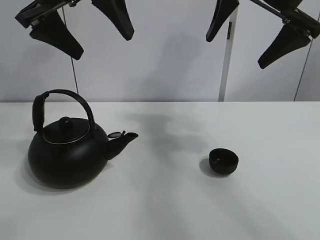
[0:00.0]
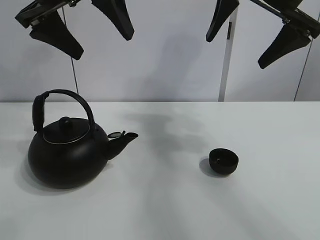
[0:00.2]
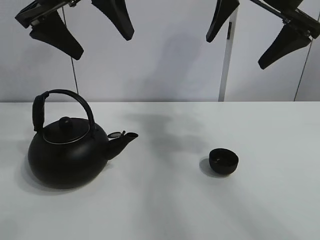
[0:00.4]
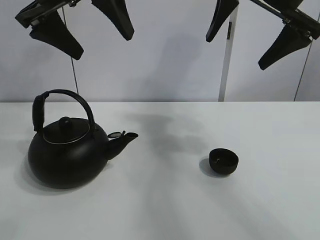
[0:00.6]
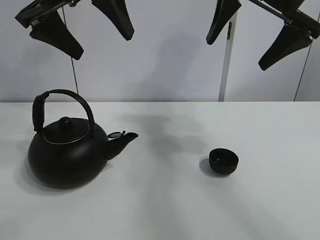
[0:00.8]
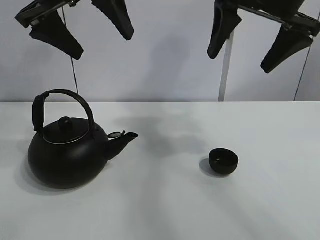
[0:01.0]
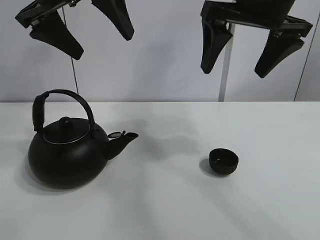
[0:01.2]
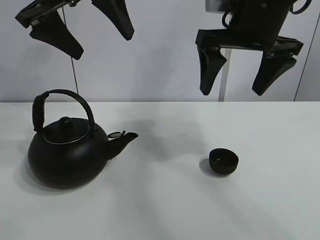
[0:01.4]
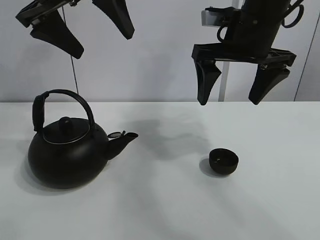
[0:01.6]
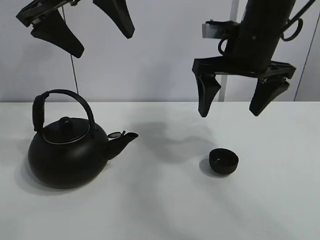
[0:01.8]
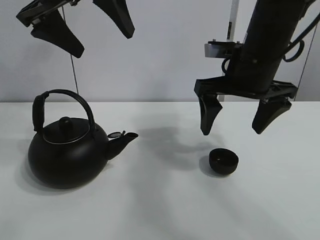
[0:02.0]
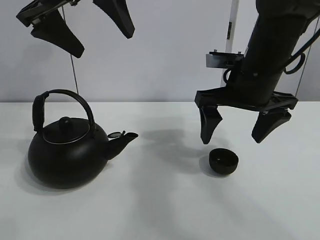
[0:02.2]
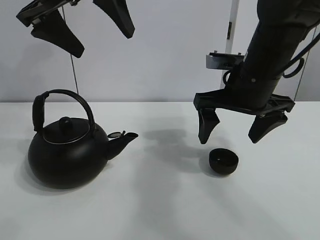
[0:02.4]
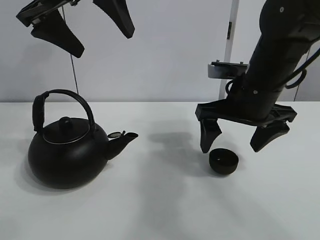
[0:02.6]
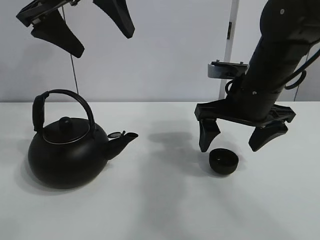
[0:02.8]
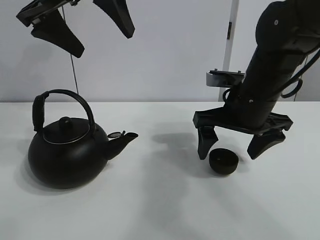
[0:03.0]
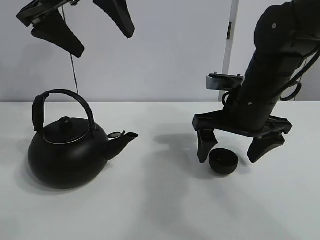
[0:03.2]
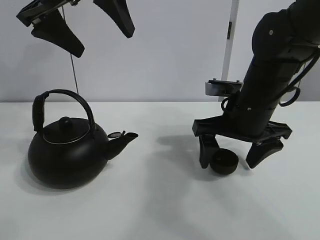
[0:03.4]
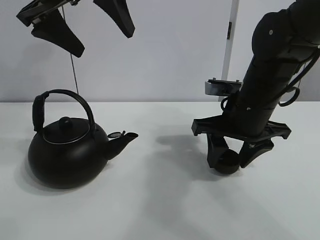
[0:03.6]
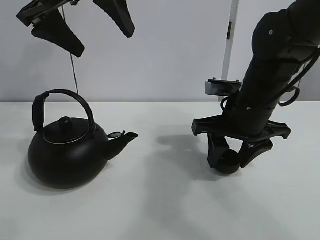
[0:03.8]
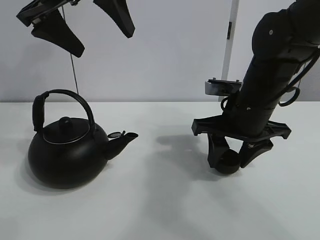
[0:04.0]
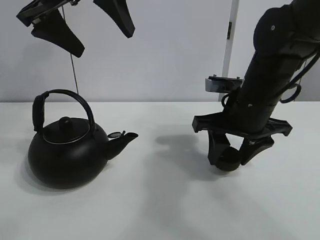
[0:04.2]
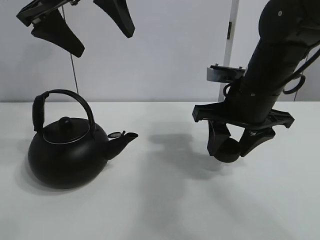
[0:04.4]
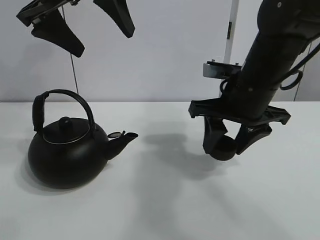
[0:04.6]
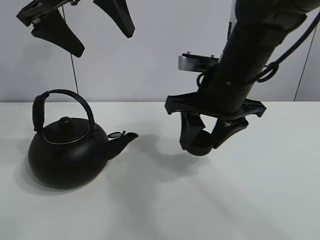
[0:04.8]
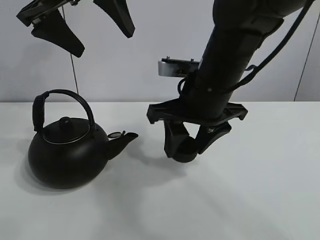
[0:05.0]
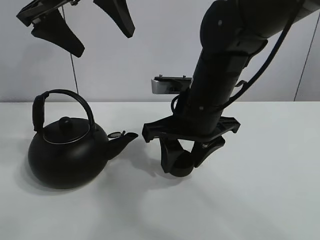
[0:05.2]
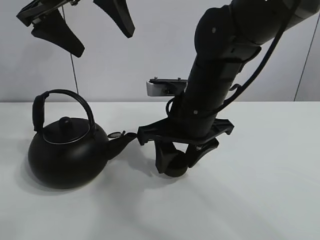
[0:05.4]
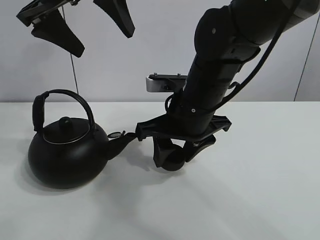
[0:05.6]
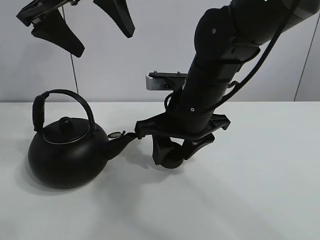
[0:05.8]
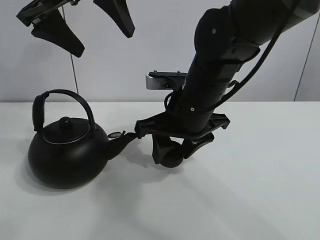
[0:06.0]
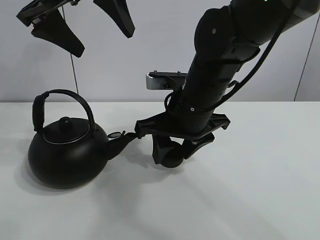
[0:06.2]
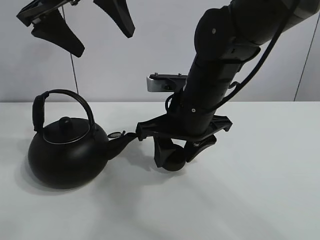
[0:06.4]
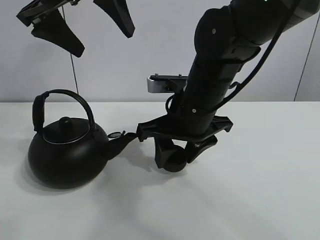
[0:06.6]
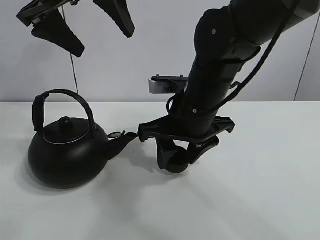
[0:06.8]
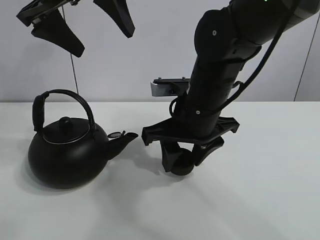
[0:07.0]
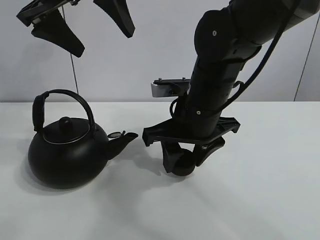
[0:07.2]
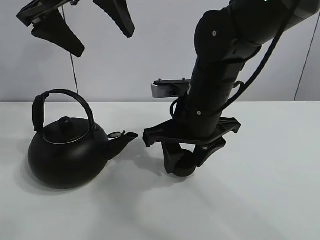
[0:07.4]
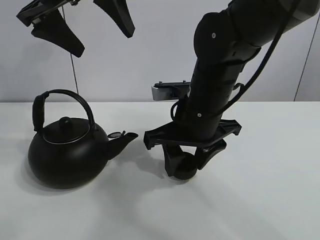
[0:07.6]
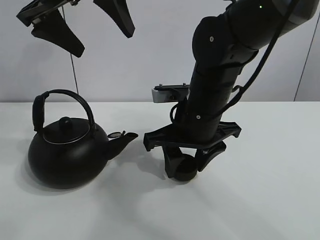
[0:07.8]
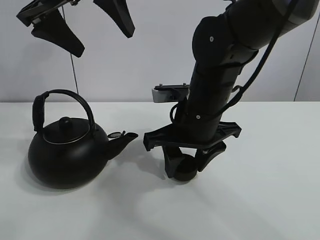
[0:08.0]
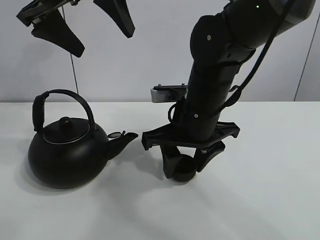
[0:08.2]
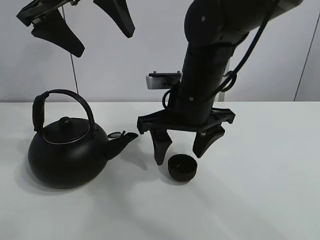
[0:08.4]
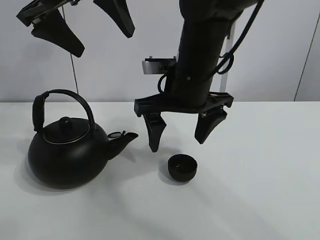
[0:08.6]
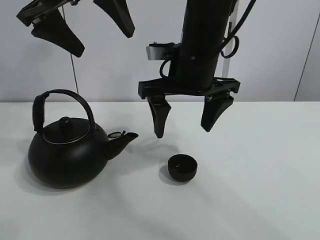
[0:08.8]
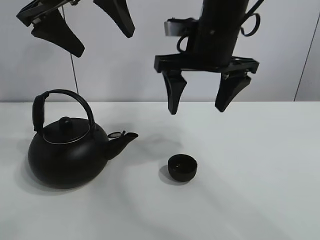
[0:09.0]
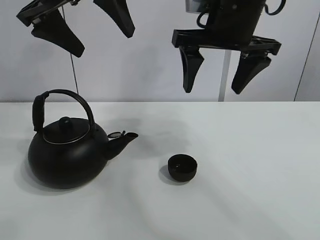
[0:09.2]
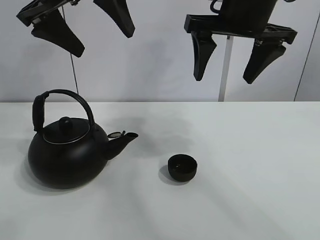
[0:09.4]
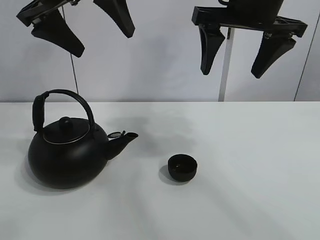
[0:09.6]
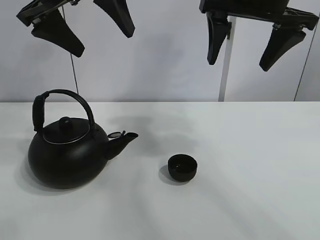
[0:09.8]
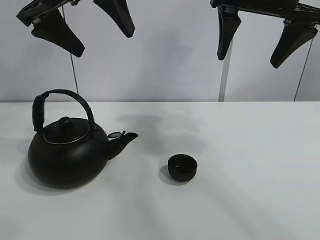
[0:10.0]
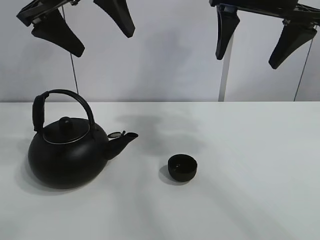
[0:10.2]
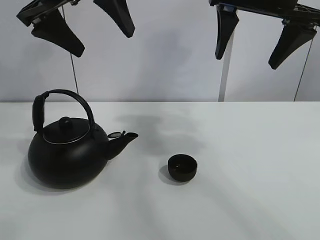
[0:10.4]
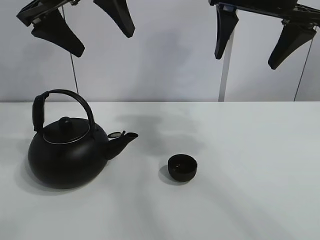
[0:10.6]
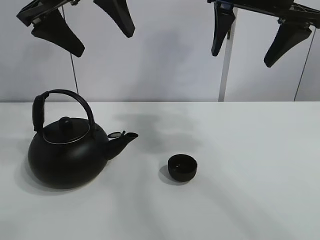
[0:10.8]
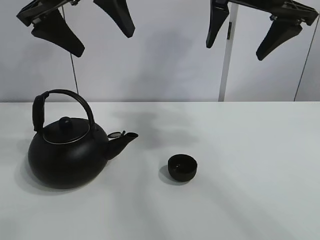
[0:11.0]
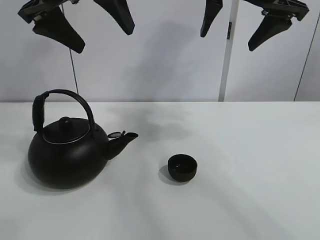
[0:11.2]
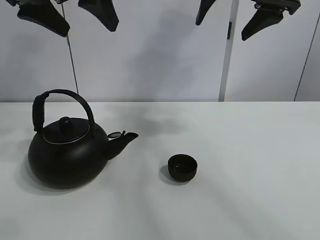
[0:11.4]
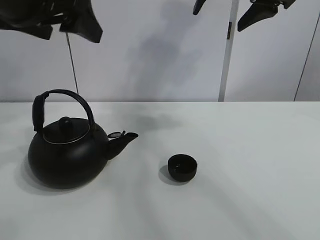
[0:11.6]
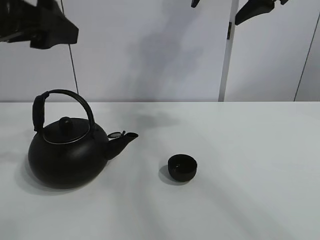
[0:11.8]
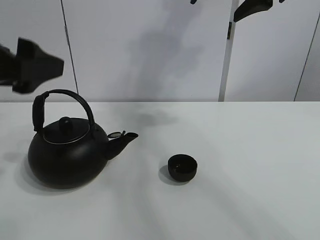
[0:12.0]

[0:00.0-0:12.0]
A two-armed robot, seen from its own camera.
Task of the whole recording: pour tea into the teacup.
Step, 0:00.0 to 0:03.6: Pick up the teacup with the right gripper.
Step, 0:04.0 to 0:08.2: Place the teacup in the center of view with the right gripper.
0:01.6 to 0:03.0: The right gripper moves downward, roughly 10 cm.
0:03.0 to 0:04.4: The right gripper closes up.
0:04.4 to 0:06.0: The right gripper goes roughly 10 cm to the left.
0:06.0 to 0:07.6: There are only small adjustments of the grippers.
0:07.6 to 0:09.0: The right gripper is displaced upward by about 10 cm, and opens up.
0:09.0 to 0:10.4: The right gripper travels to the right and upward by some 10 cm.
0:10.4 to 0:12.0: The right gripper changes place by some 5 cm. Meanwhile the left gripper goes approximately 15 cm backward, downward and to the left.

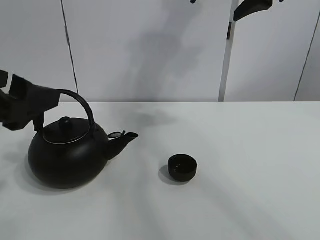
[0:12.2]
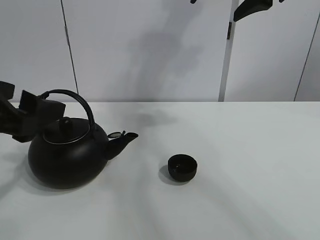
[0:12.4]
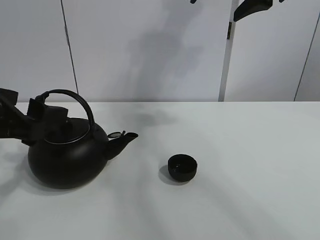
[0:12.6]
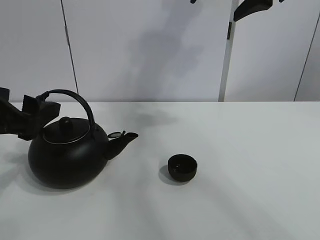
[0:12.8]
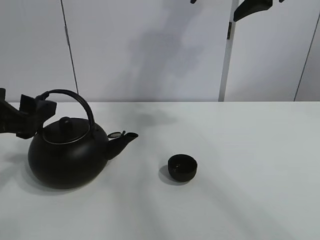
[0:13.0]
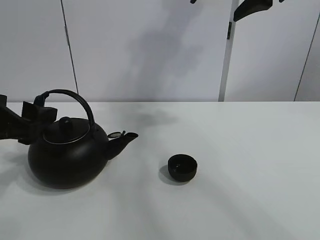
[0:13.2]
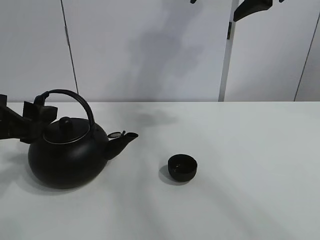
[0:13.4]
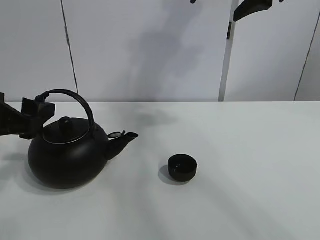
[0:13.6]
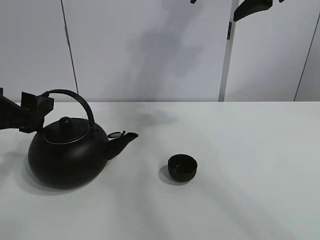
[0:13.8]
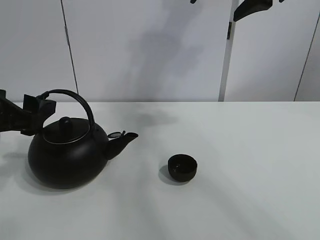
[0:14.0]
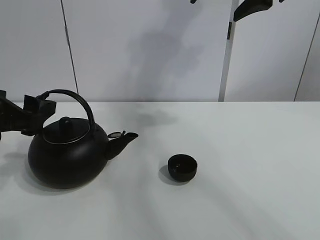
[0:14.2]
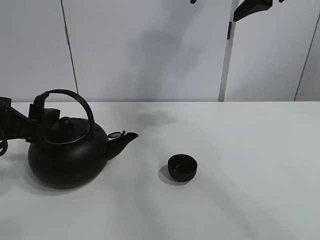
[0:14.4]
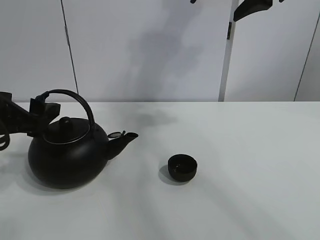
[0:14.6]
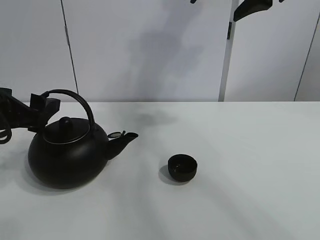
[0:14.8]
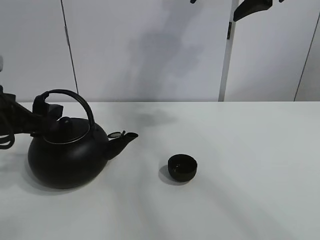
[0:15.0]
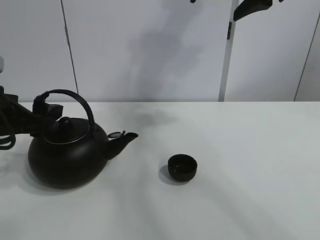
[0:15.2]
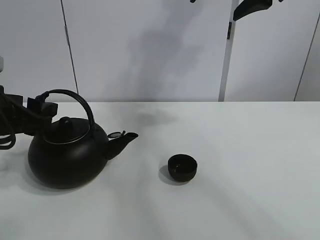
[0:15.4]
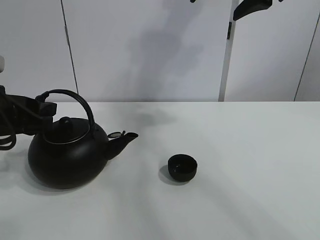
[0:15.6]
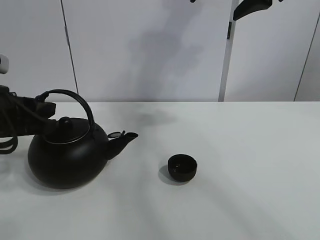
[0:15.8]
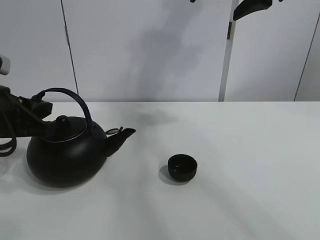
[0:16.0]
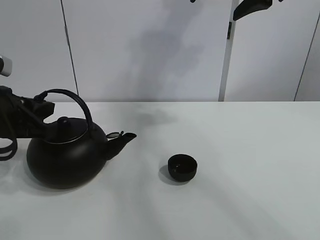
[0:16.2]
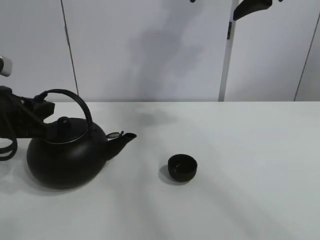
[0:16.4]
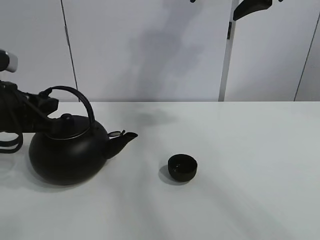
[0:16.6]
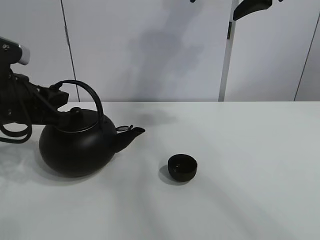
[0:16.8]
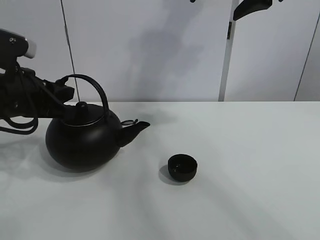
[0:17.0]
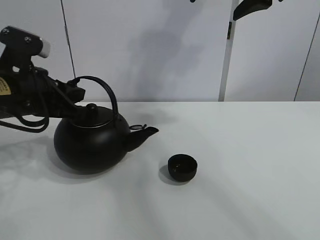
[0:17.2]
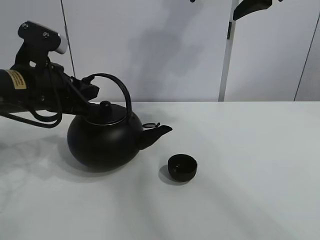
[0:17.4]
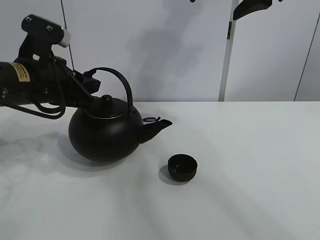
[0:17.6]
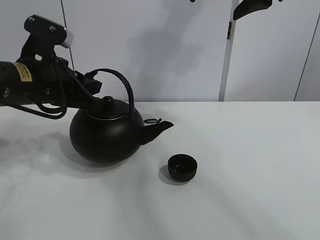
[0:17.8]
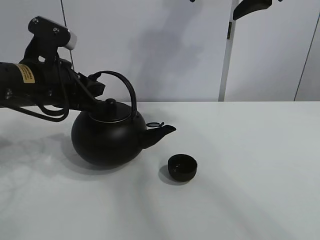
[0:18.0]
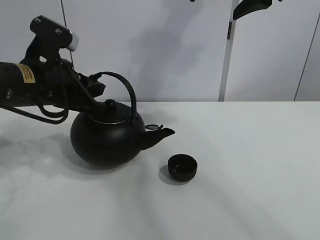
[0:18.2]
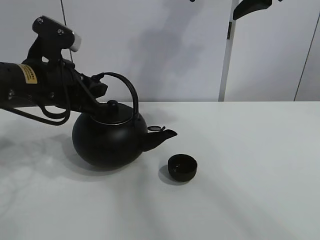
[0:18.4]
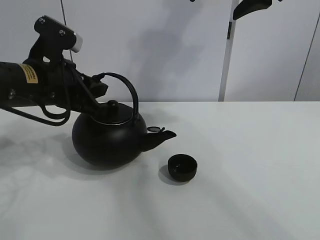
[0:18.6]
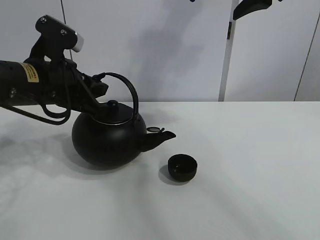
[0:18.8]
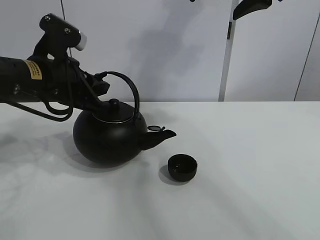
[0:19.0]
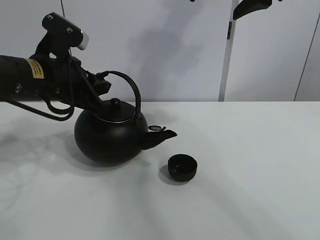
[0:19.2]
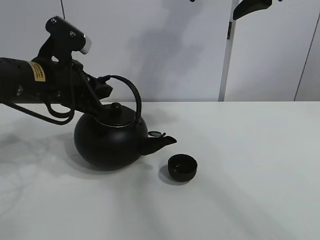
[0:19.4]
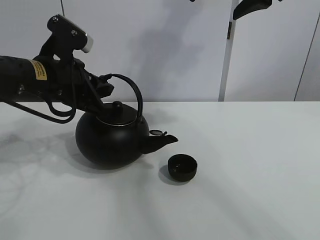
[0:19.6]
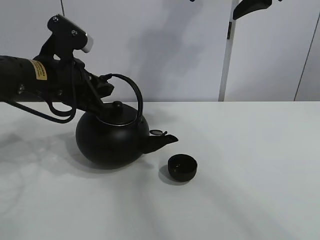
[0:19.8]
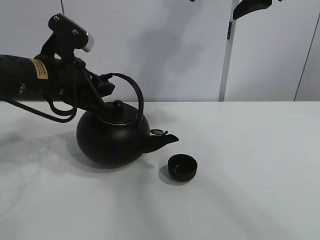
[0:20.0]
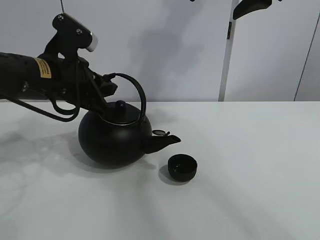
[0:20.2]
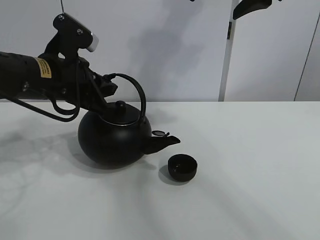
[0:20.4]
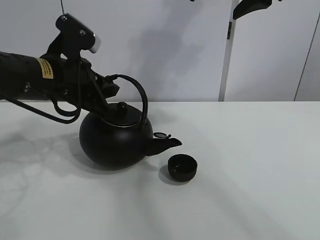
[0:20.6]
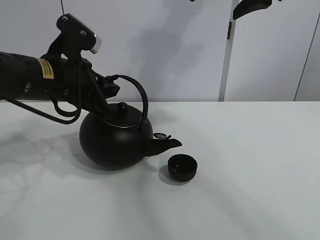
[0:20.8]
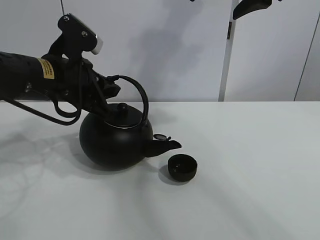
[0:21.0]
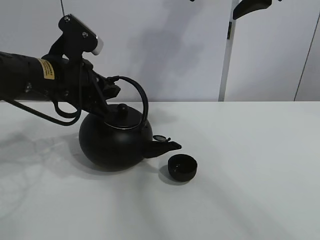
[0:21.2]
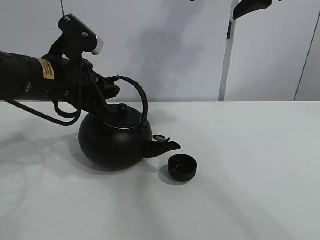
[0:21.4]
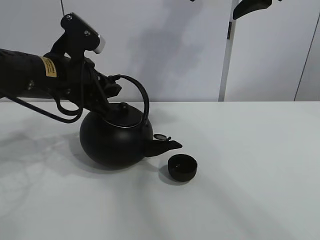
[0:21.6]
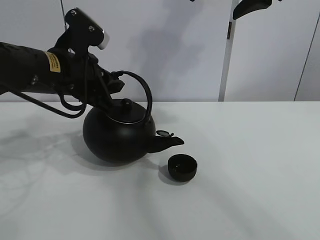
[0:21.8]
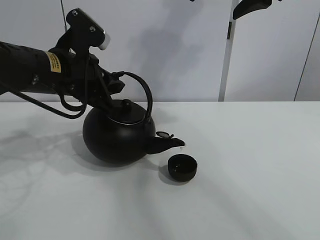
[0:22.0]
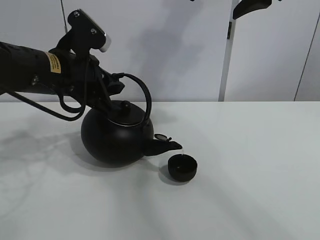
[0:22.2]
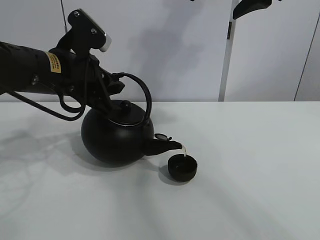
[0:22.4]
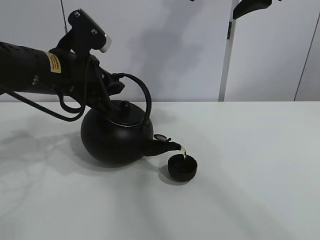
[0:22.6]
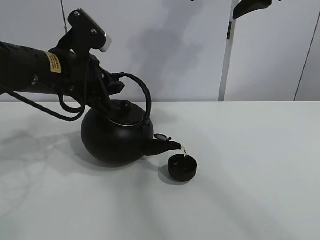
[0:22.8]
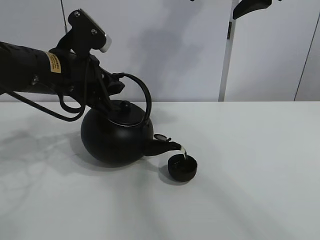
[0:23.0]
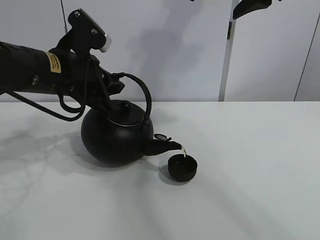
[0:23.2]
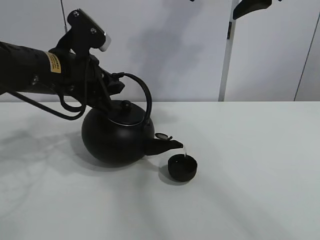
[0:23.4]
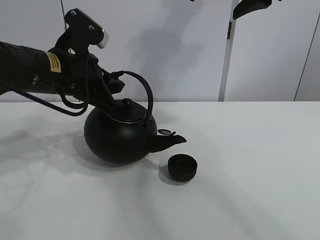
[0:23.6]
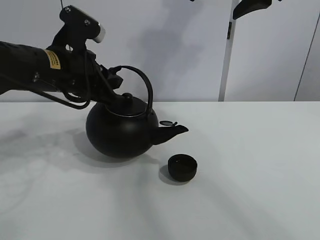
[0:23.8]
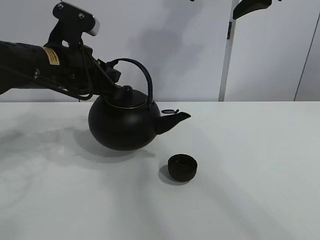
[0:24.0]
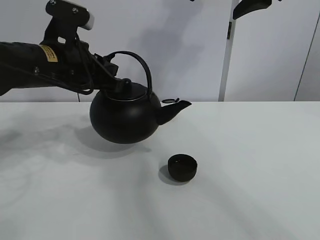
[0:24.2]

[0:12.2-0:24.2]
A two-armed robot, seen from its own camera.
Task of the whole recording: pour tea into the teacup.
Step, 0:12.2 to 0:16.2: Pick up the teapot with the left gripper.
Step, 0:16.4 to 0:23.6: Pour tea into the teacup with the left gripper.
0:12.2 to 0:13.8: The left gripper goes roughly 5 cm downward.
0:13.8 to 0:15.2: The grippers stay close to where they were, moving slightly.
0:15.2 to 0:16.6: The left gripper closes.
0:16.6 to 0:18.2: The left gripper travels to the right by about 5 cm.
0:18.2 to 0:19.8: There are only small adjustments of the grippers.
0:19.8 to 0:21.2: The two grippers keep their place.
0:21.2 to 0:22.6: Neither gripper changes place.
0:22.6 to 0:24.2: There are only small adjustments of the grippers.
